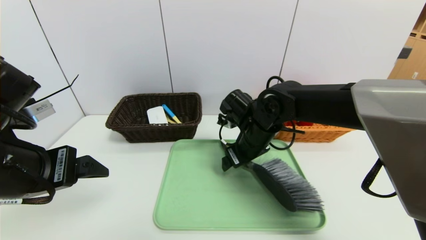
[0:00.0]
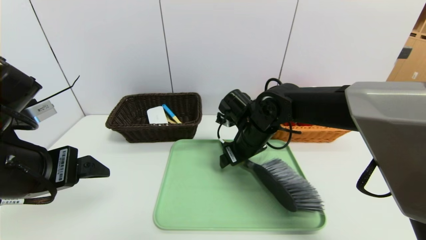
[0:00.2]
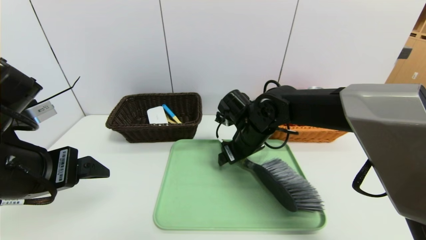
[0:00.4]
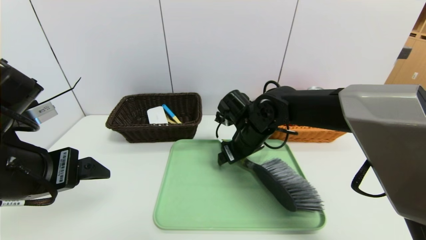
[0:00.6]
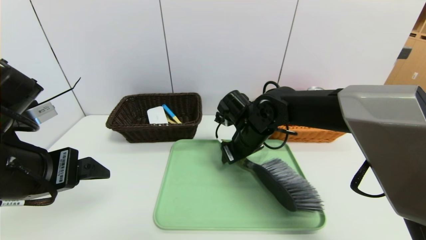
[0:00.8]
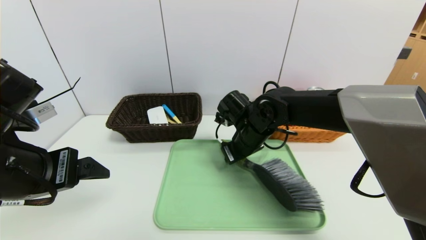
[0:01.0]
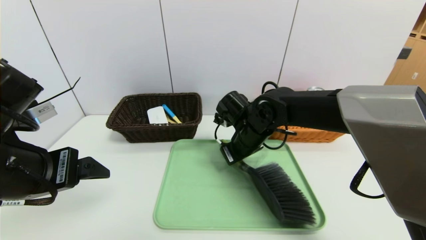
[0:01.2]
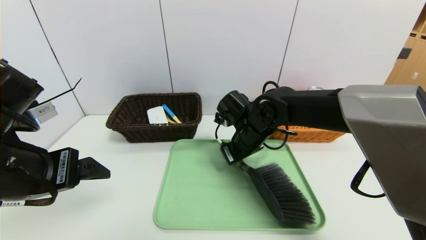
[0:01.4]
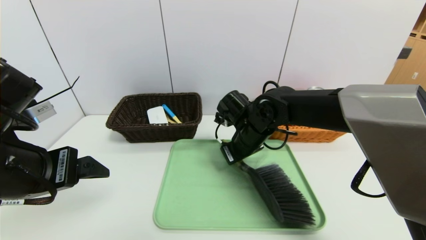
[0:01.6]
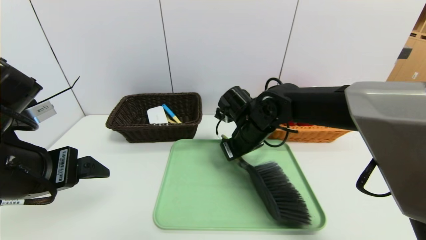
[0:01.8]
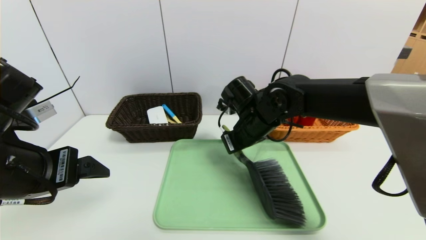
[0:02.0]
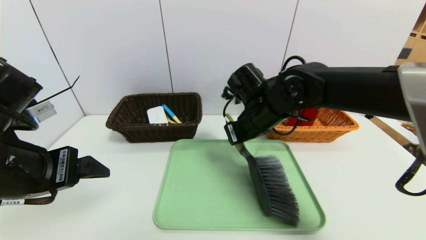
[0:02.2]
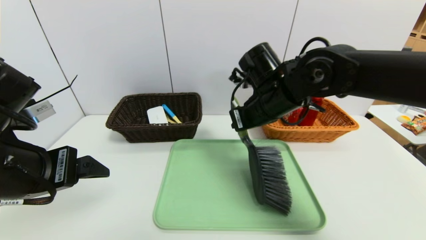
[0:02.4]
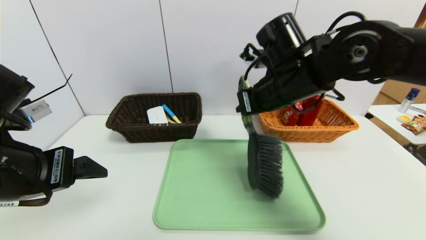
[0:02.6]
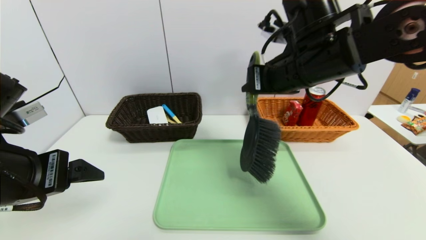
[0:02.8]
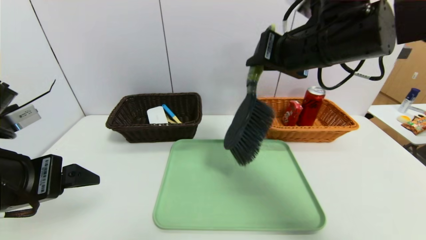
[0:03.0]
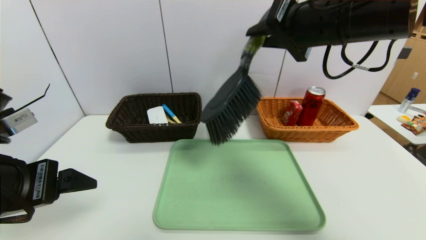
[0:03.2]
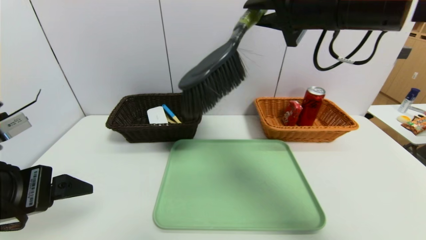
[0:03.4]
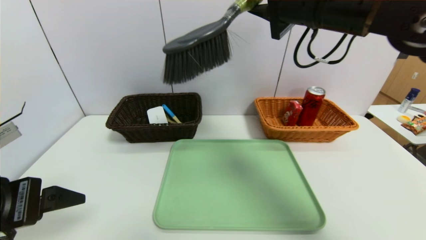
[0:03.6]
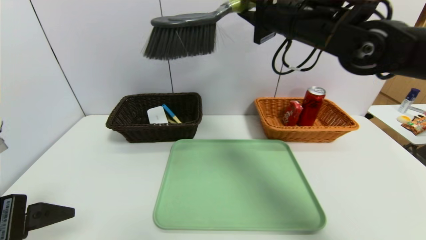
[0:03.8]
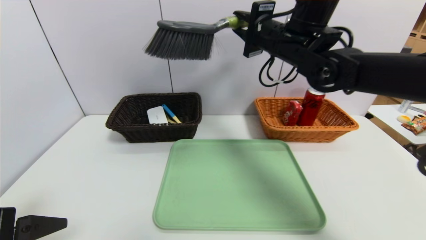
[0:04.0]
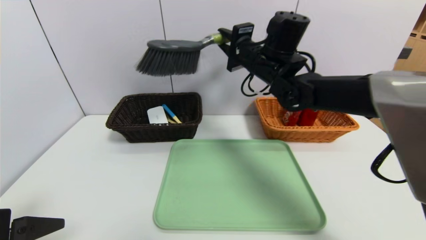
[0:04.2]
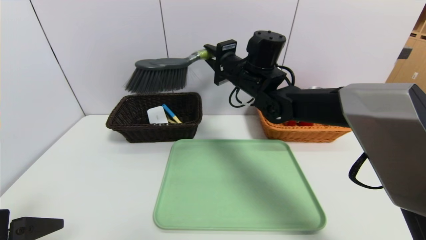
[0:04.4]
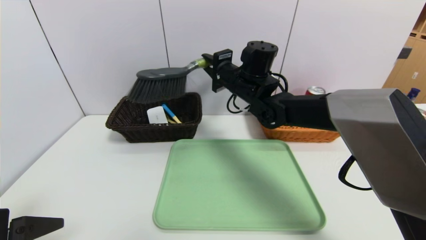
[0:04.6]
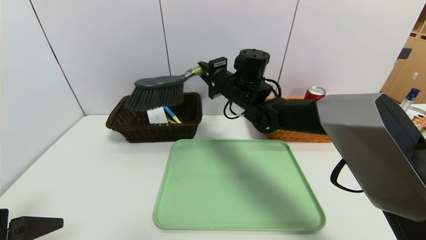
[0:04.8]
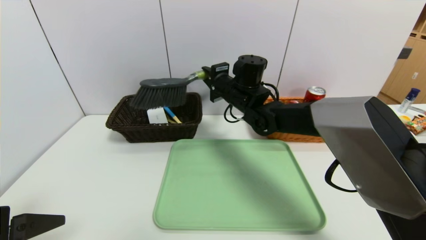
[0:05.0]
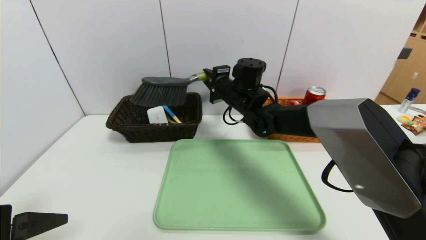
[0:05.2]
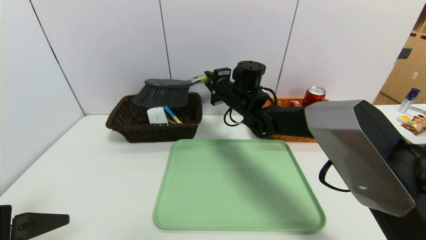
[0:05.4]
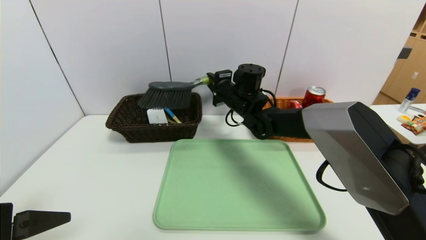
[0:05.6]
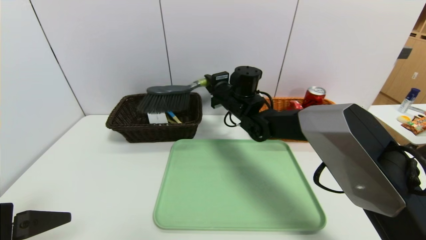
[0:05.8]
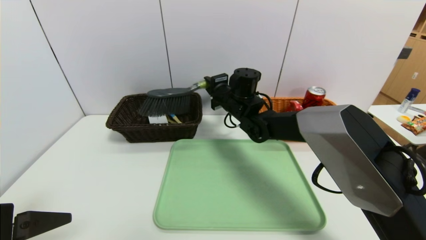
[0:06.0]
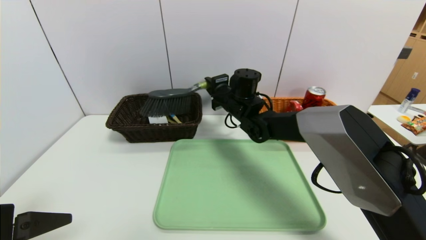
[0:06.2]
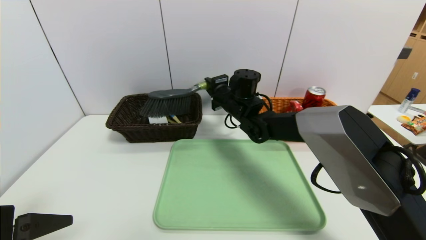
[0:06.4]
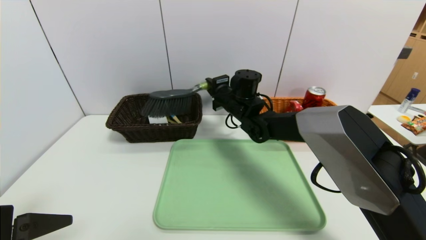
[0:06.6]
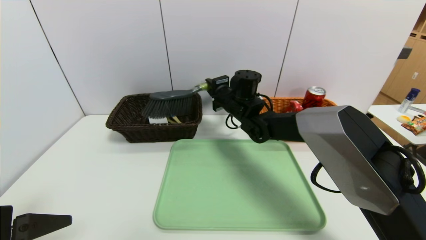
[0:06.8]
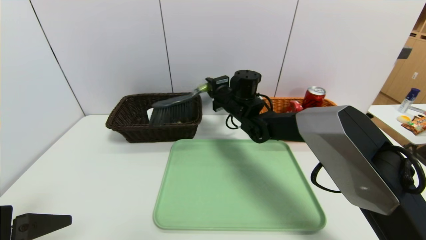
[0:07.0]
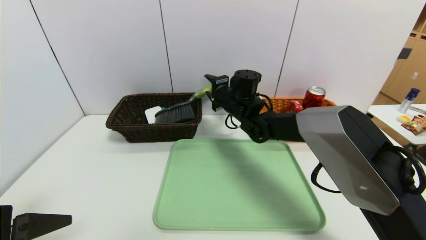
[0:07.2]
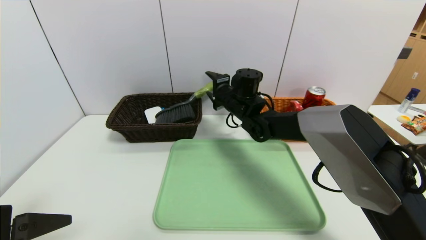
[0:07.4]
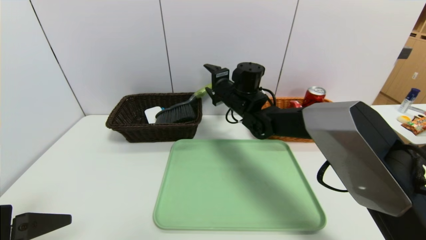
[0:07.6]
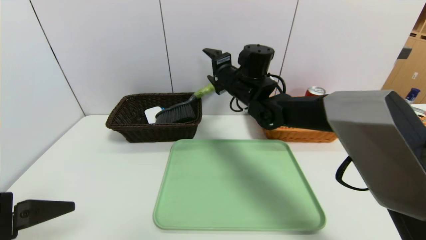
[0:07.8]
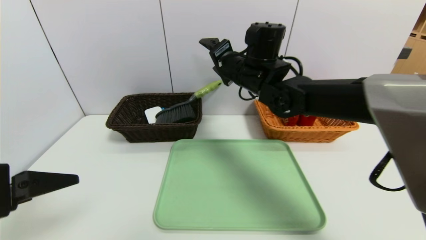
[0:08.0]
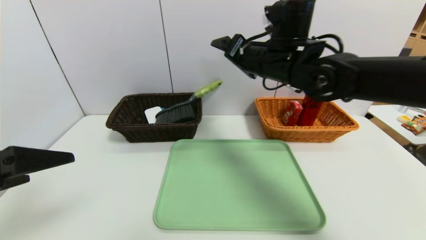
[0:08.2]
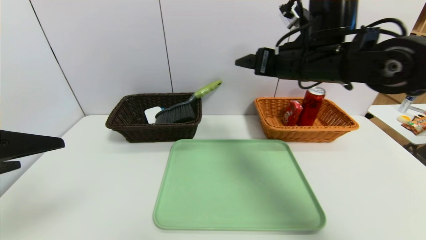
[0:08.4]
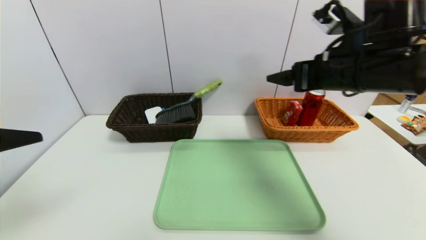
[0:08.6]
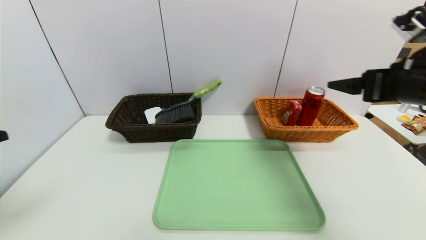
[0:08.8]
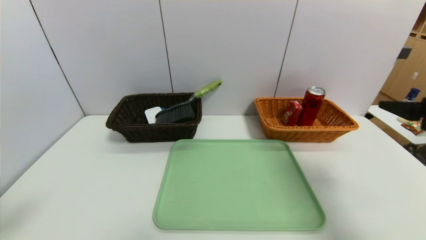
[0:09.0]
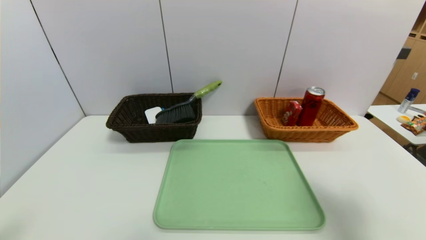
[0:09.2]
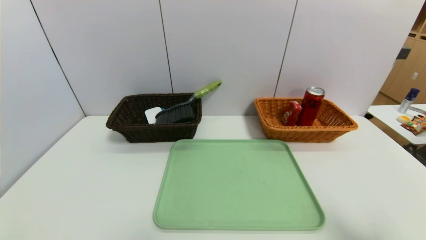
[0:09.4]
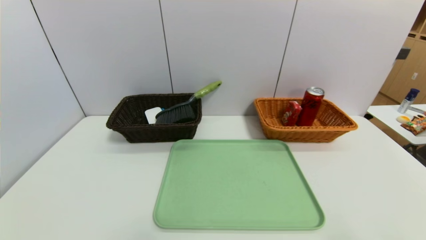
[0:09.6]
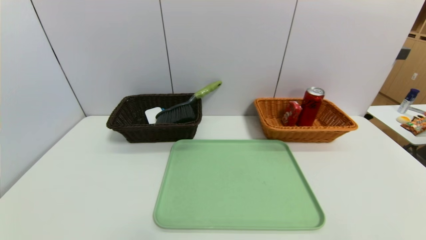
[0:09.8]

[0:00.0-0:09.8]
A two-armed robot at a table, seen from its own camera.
Task of the whole recording: place the food in the right basket with the right gripper, and place the non food items in the left basket with the left gripper.
Step, 0:00.0 to 0:07.2: Grasp the broom and put it in the left basket.
0:00.0 to 0:01.4: The right gripper closes.
0:01.4 to 0:02.8: The right gripper moves upward, about 15 cm.
0:02.8 to 0:04.2: The left gripper heads backward, covering roughly 5 cm. The right gripper heads forward, covering about 10 cm.
0:04.2 to 0:05.6: The right gripper moves downward, roughly 10 cm.
0:05.6 to 0:07.0: The grippers move only a little.
0:07.0 to 0:08.4: The right gripper is displaced upward, backward and to the right by approximately 20 cm, and opens, while the left gripper heads upward, covering approximately 5 cm.
0:08.4 to 0:09.8: The right gripper travels backward and to the right by about 40 cm, while the left gripper goes some 20 cm backward and downward.

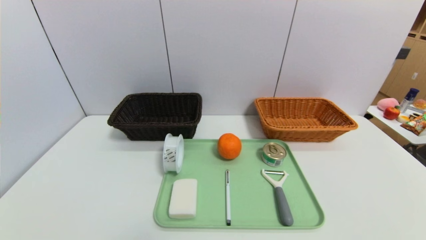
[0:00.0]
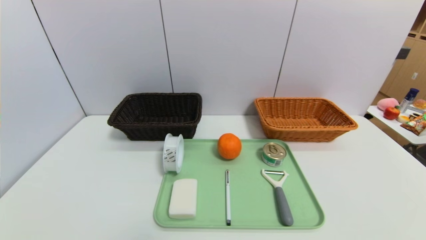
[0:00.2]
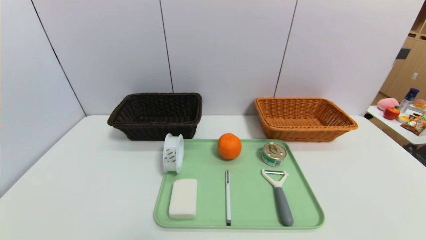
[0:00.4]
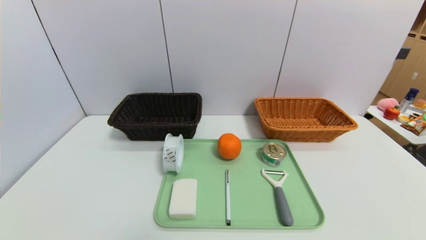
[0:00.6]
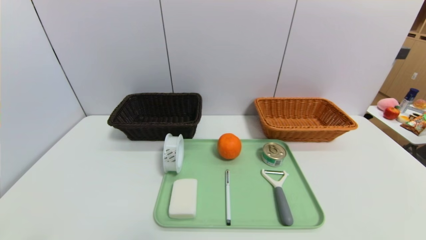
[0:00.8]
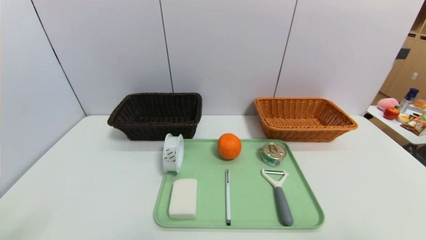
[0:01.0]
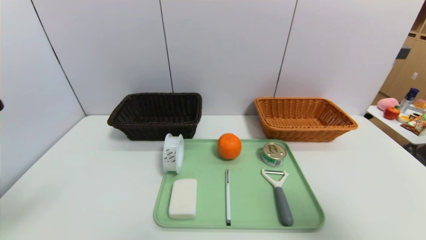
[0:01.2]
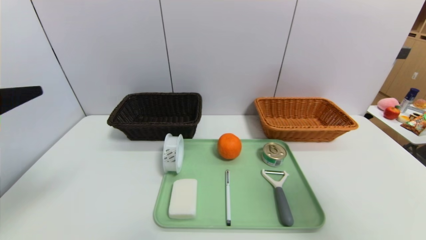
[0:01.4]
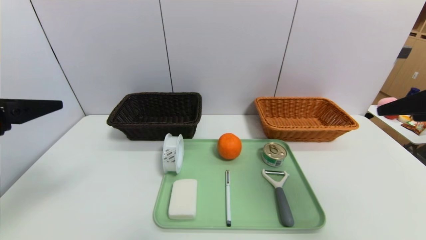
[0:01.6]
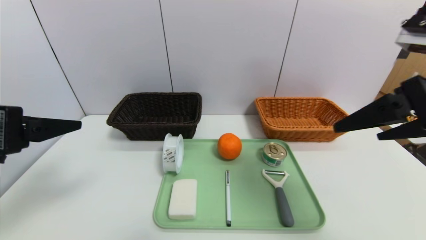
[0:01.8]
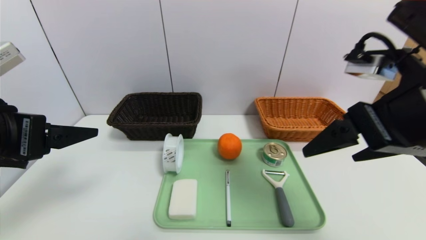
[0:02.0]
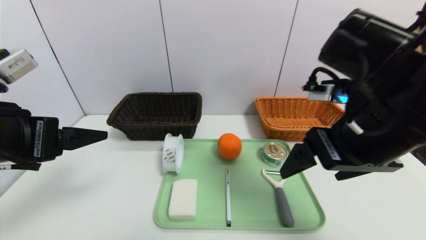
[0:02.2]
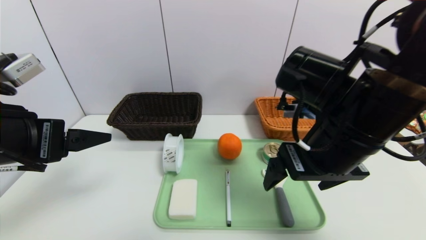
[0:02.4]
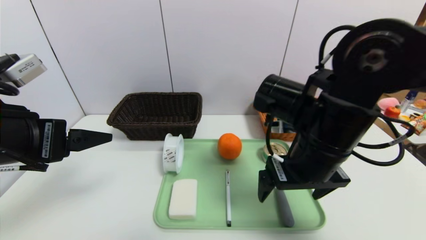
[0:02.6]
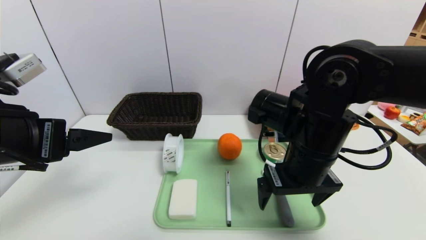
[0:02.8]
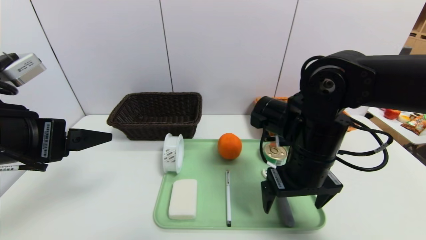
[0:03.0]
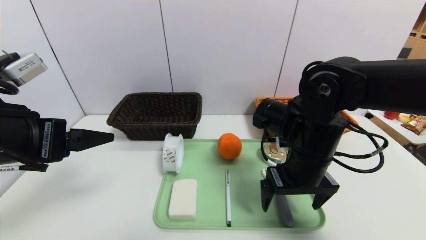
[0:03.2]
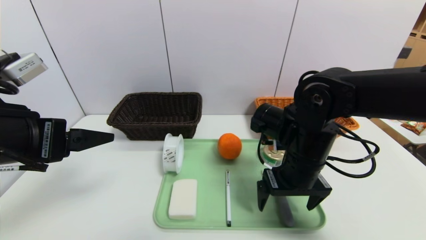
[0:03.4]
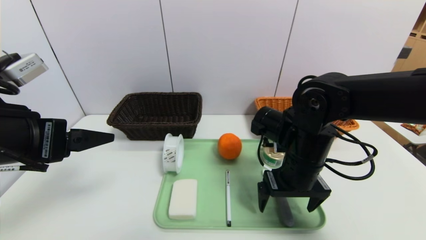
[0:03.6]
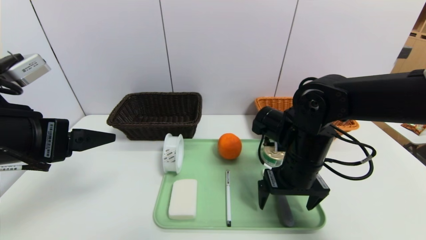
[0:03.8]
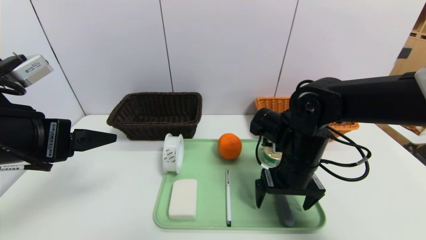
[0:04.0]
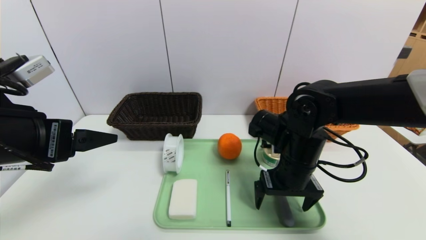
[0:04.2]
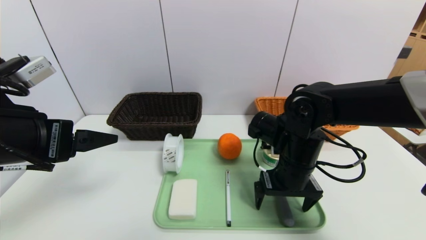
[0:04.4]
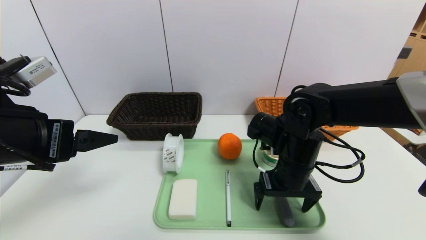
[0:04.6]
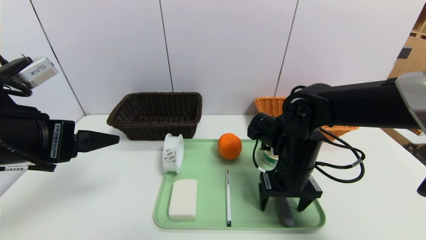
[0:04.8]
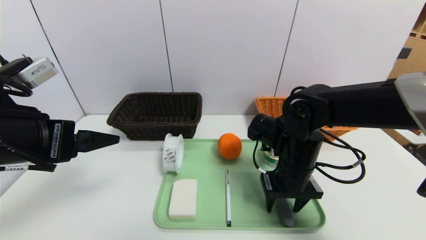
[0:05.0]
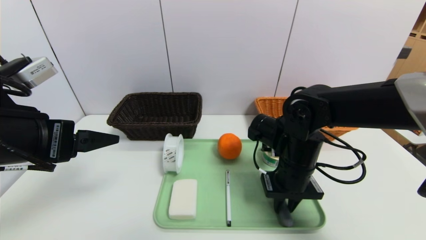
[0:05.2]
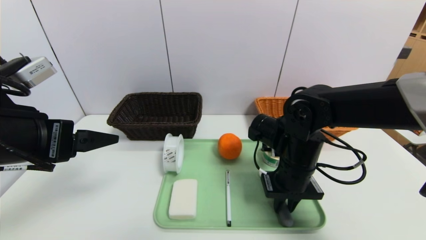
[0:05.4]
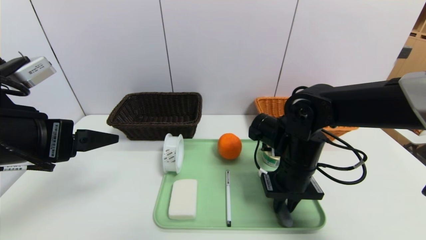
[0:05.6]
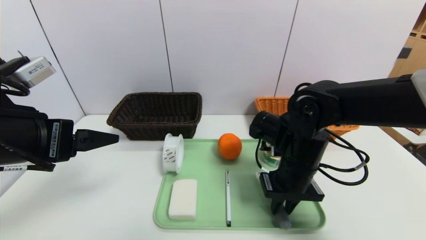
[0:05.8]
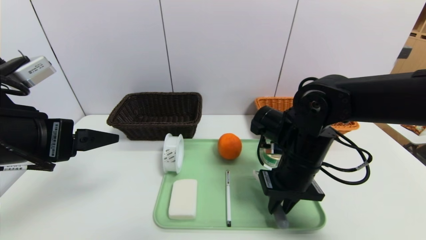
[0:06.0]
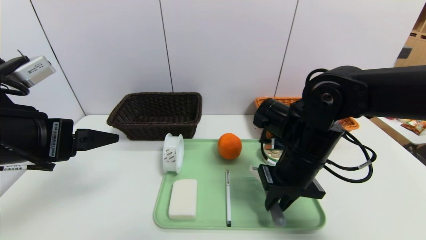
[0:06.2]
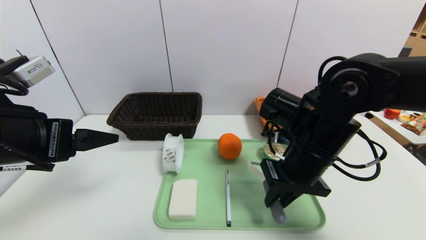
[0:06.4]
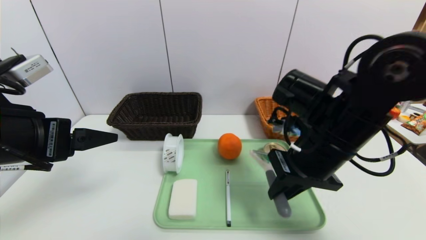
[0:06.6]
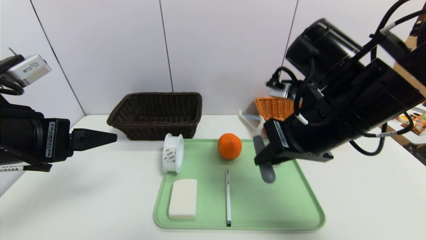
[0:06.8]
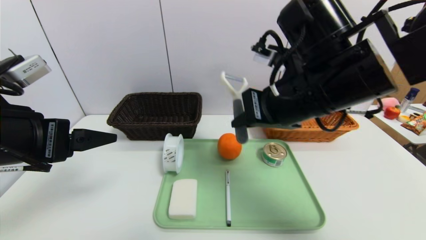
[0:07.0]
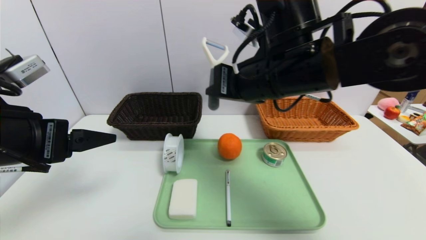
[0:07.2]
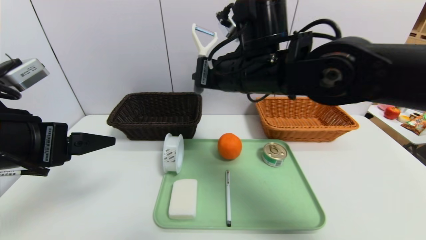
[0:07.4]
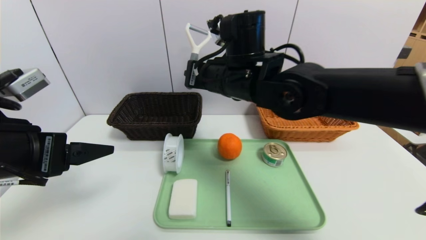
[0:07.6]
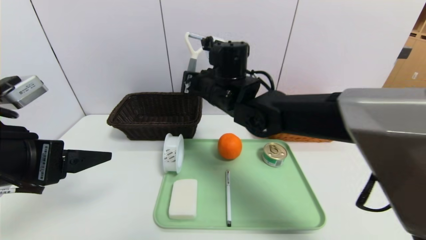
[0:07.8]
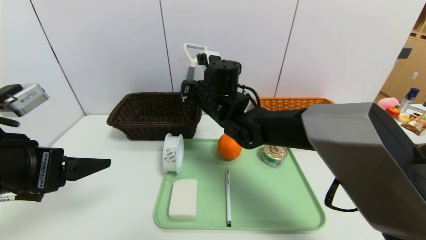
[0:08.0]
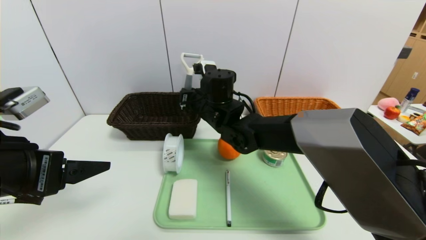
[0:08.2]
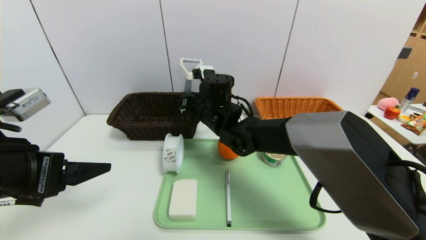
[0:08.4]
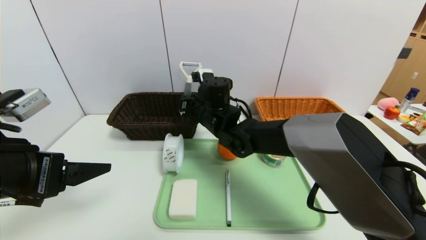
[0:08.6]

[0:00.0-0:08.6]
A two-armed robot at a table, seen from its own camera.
Task of the whole recording: place the food in the right basket with the right gripper, and place the non food items in the left basket with the left gripper.
0:00.0 to 0:01.4: Both grippers move upward and forward, about 30 cm.
0:01.4 to 0:02.8: The left gripper shifts by some 5 cm; the right gripper moves to the left, downward and forward, some 25 cm.
0:02.8 to 0:04.4: The right gripper travels downward by about 5 cm.
0:04.4 to 0:05.8: The right gripper closes.
0:05.8 to 0:07.2: The right gripper shifts about 15 cm upward and to the left.
0:07.2 to 0:08.6: The right gripper travels downward, forward and to the left by about 20 cm.
